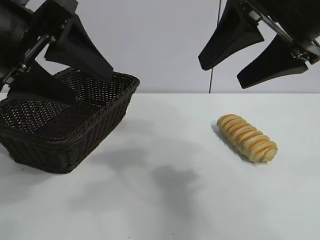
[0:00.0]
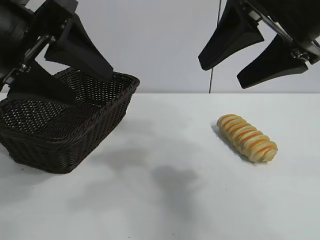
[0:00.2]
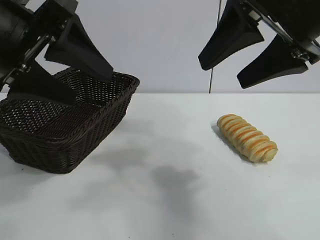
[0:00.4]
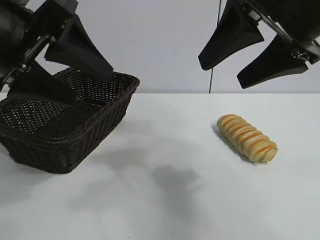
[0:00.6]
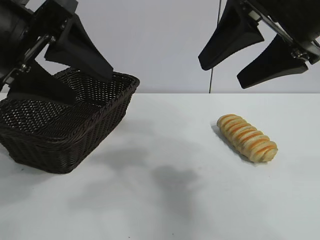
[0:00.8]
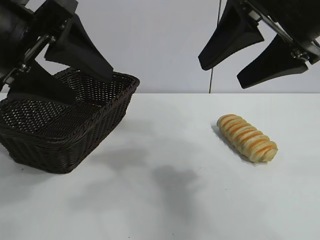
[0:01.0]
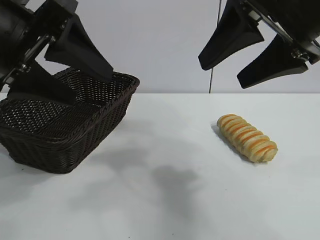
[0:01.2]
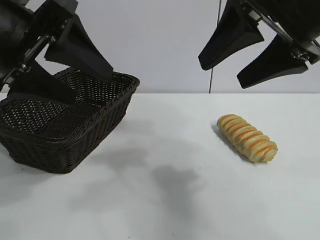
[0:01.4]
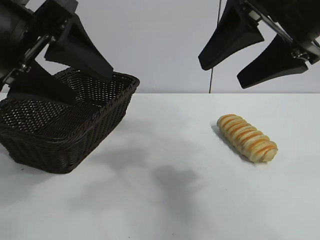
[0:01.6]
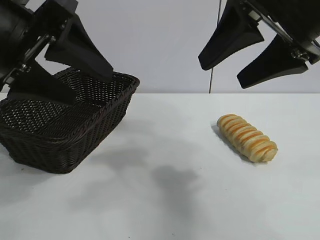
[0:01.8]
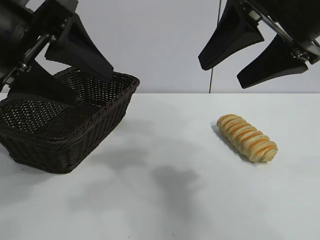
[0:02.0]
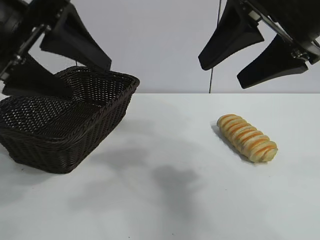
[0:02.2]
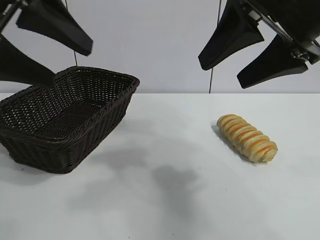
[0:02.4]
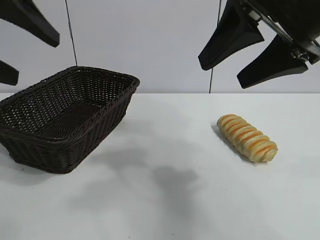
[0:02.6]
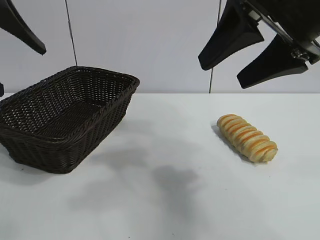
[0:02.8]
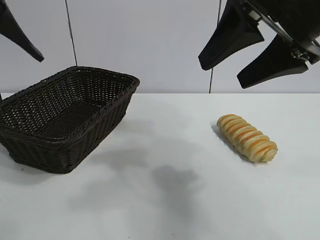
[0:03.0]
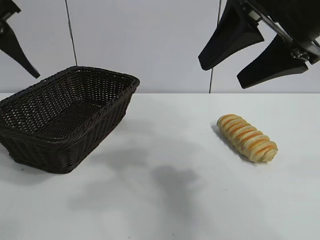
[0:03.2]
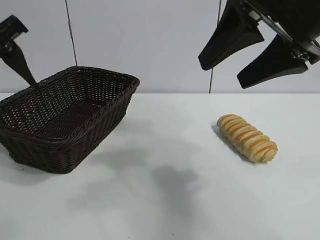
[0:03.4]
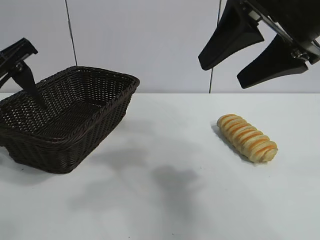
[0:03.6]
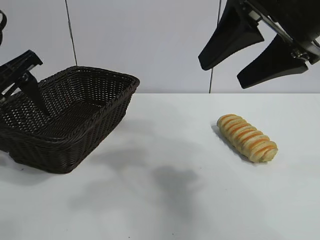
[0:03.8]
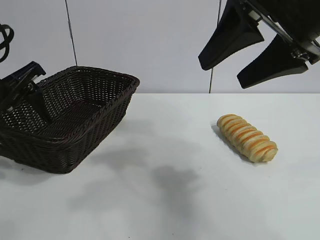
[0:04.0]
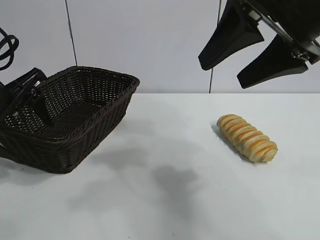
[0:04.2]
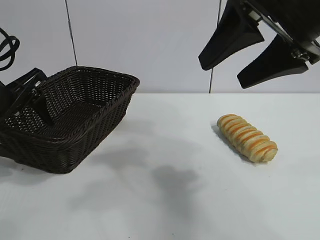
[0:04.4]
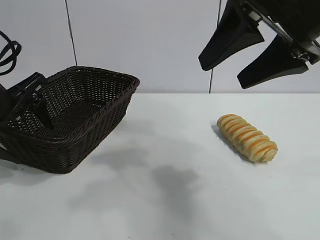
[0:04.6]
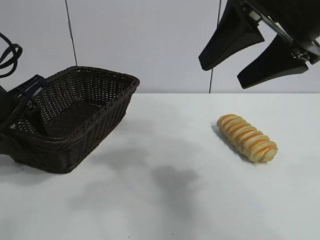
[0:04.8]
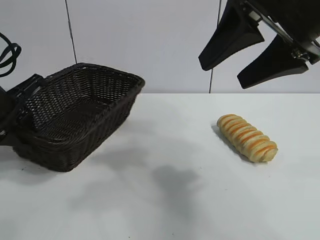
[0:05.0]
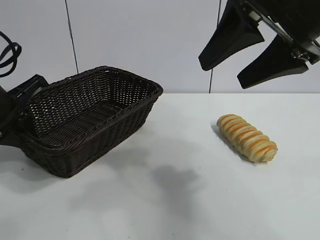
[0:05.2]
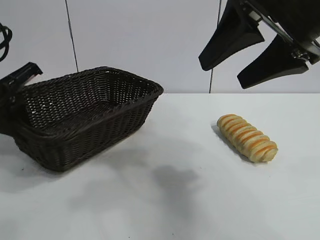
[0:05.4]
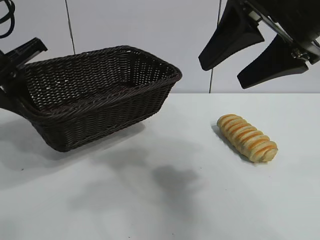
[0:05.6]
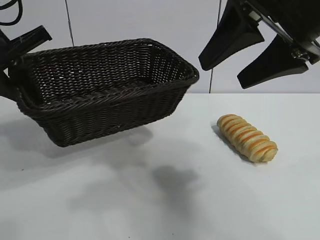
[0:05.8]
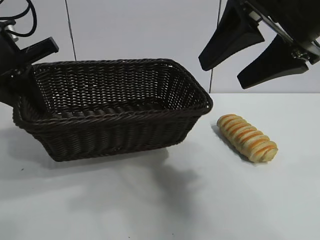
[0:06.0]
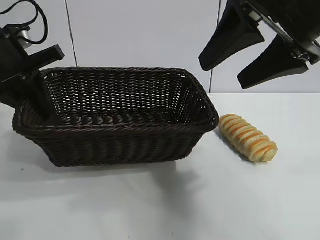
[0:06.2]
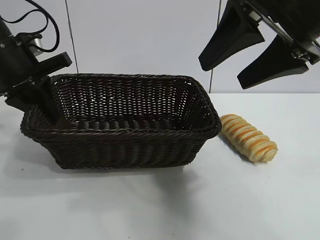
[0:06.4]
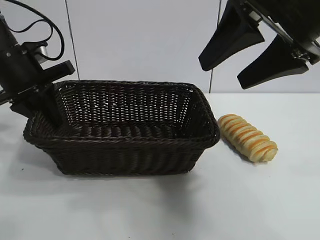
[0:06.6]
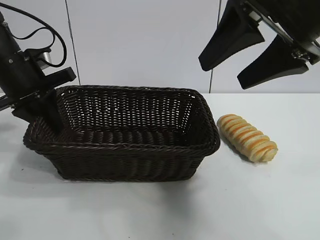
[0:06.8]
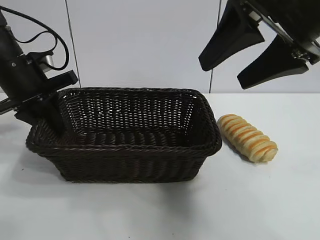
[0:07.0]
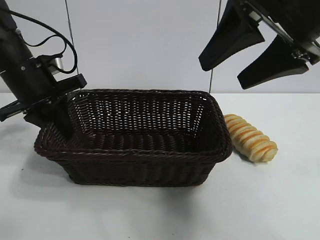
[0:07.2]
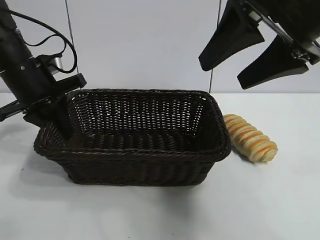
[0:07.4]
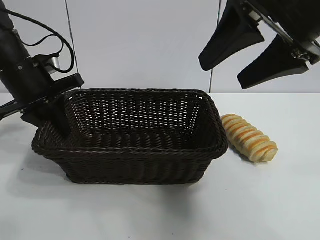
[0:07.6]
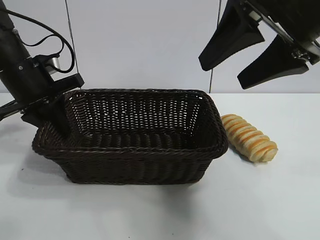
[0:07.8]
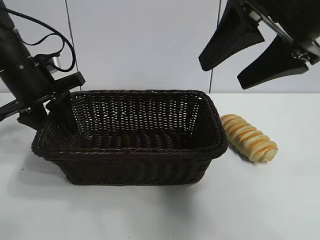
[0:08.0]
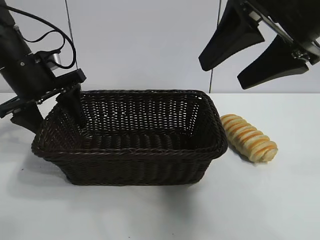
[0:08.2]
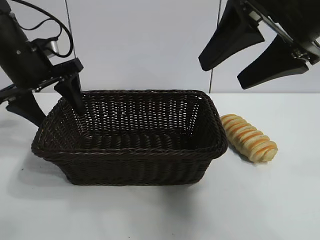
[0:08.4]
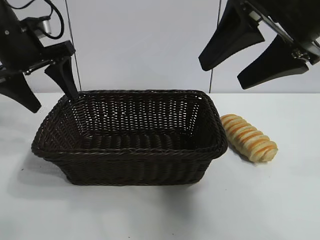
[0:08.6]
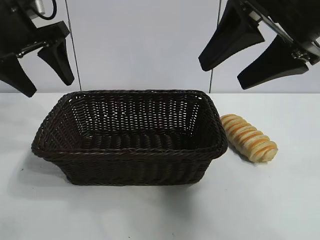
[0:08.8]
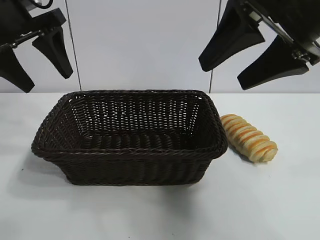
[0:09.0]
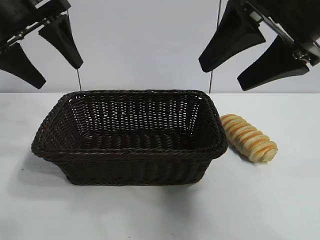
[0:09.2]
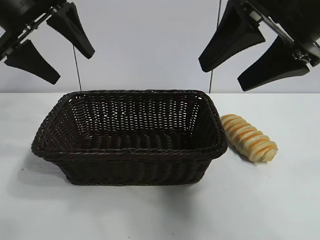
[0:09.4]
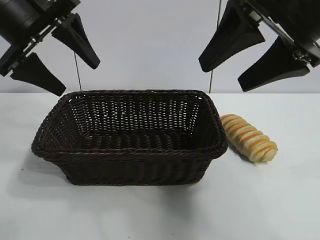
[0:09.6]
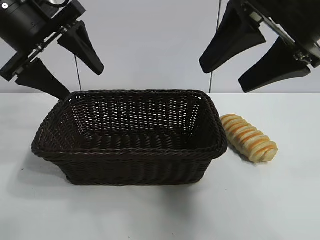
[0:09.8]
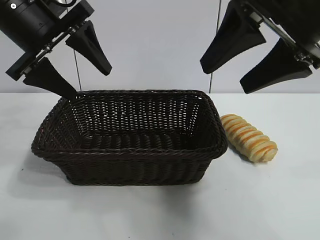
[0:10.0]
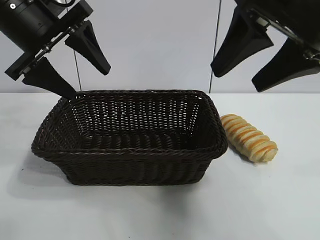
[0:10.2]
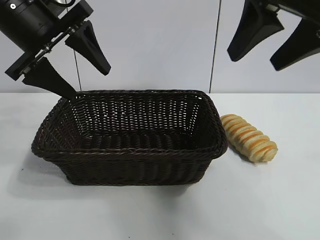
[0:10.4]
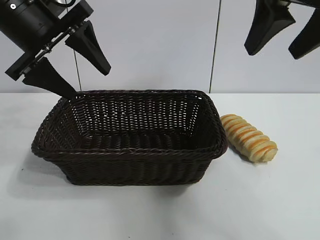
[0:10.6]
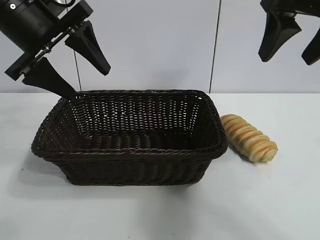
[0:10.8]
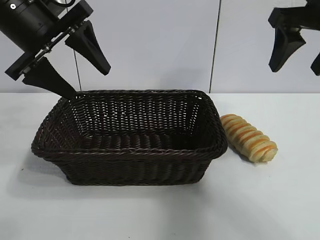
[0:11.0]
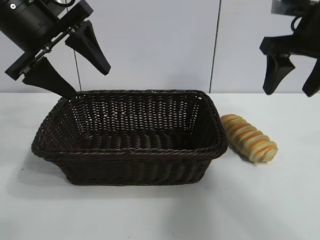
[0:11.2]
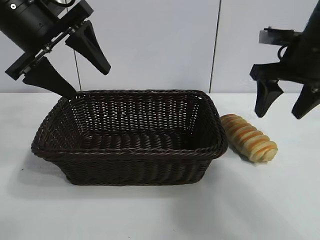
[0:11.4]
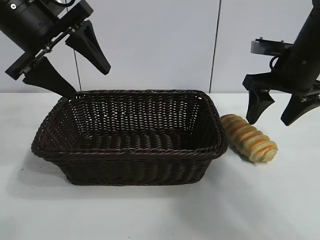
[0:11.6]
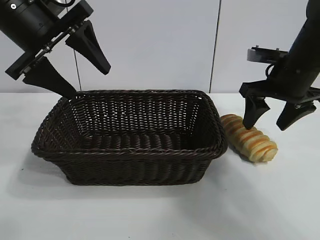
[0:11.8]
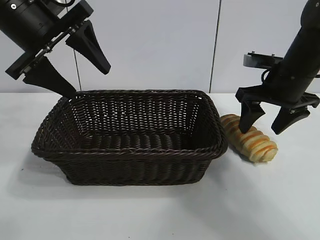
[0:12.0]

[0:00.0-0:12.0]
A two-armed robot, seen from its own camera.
Task of the whole recording: pick up the long bread and put it into the basket.
Step, 0:02.2 to 0:05.0: Grasp the basket with the left gripper.
Step, 0:05.2 to 0:08.2: Place the basket in the center of the table with the left gripper.

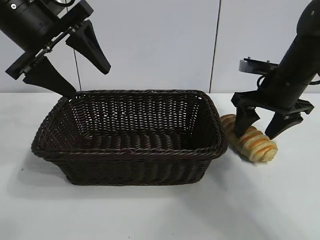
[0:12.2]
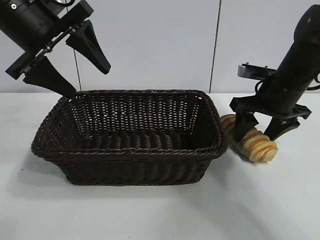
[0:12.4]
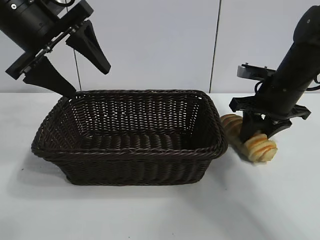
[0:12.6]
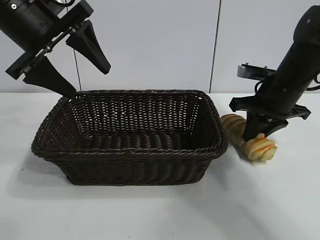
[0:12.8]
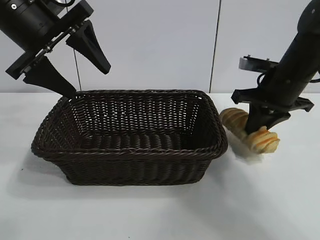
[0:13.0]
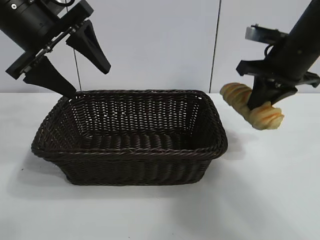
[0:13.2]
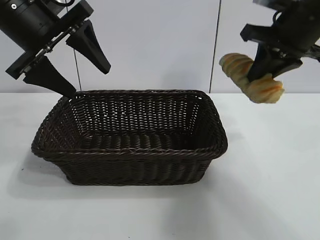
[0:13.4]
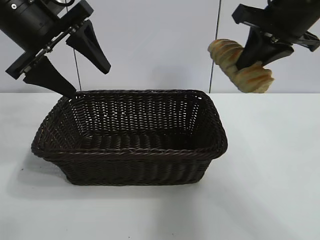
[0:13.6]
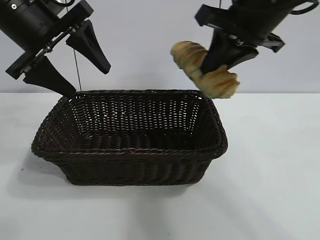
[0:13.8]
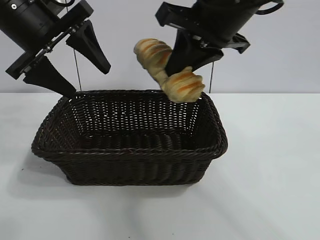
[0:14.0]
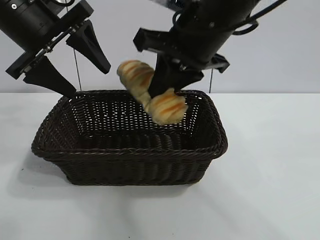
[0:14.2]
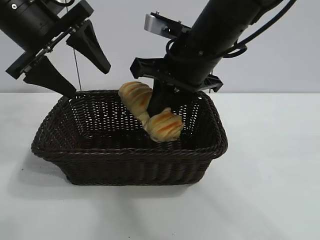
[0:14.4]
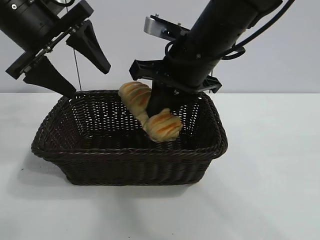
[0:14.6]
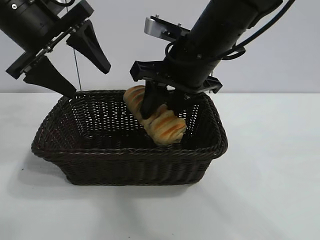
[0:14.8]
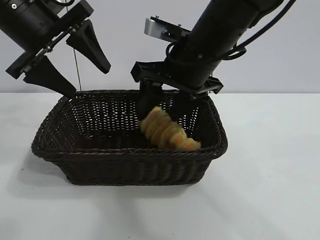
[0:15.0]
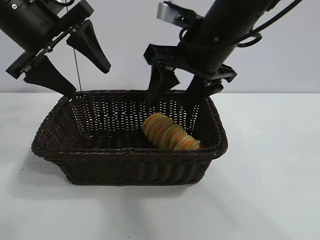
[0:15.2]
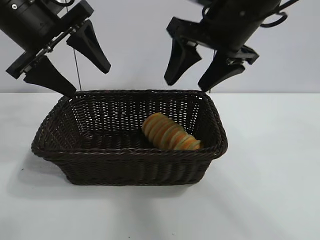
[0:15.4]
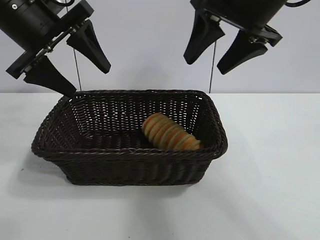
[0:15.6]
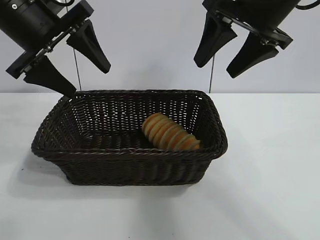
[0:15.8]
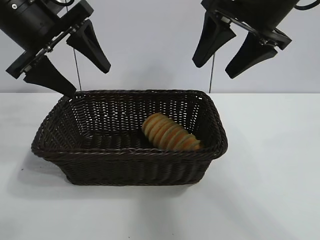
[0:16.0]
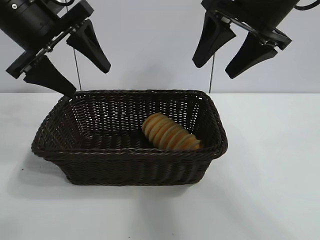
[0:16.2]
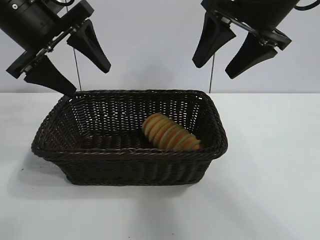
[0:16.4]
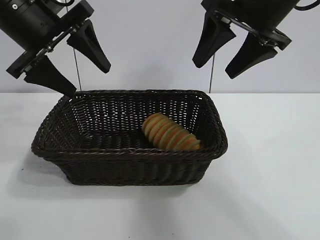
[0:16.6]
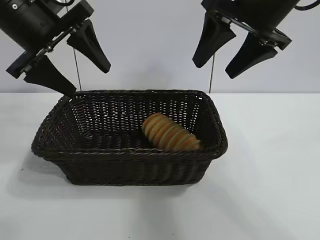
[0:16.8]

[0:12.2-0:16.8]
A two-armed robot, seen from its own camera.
Task of the whole recording: pick up the long bread and put it into the basket.
Step, 0:13.0 to 0:15.2: Place the long bread in the basket with right gripper.
